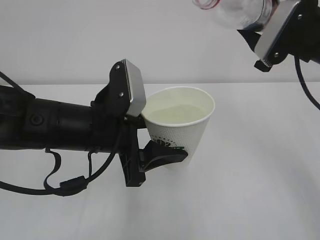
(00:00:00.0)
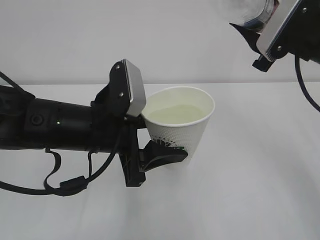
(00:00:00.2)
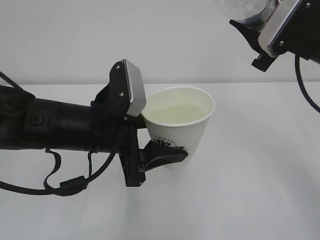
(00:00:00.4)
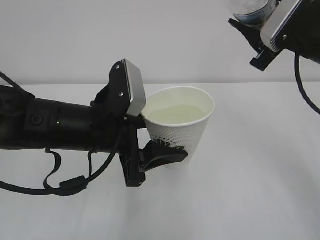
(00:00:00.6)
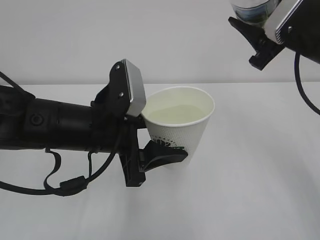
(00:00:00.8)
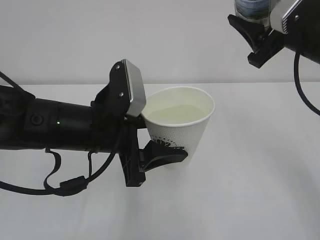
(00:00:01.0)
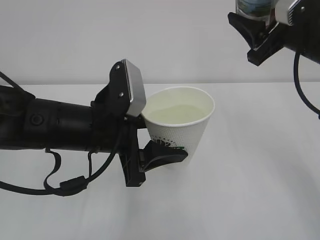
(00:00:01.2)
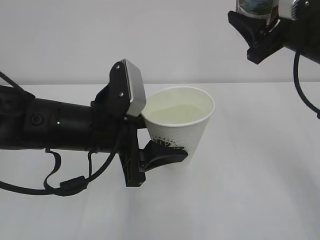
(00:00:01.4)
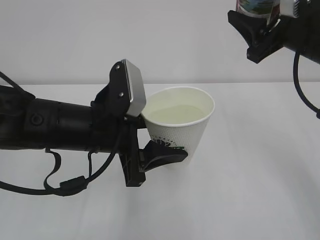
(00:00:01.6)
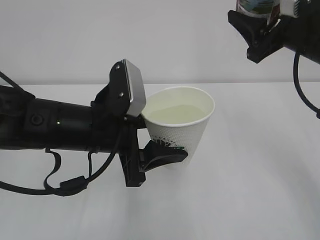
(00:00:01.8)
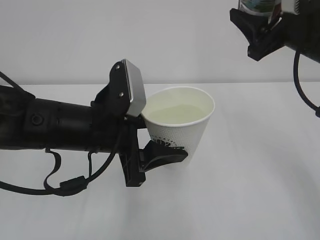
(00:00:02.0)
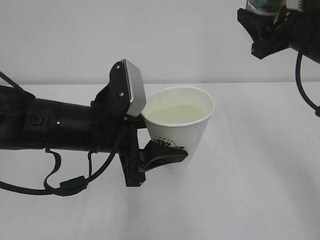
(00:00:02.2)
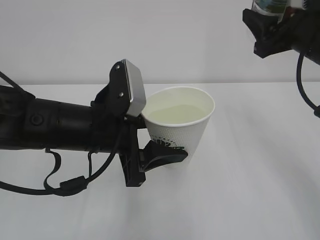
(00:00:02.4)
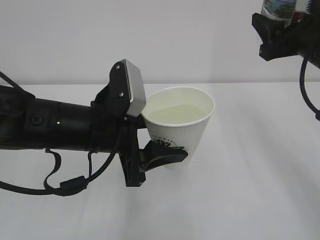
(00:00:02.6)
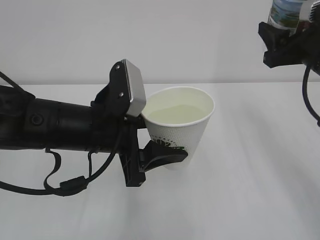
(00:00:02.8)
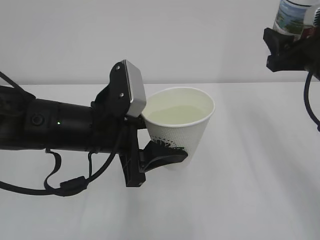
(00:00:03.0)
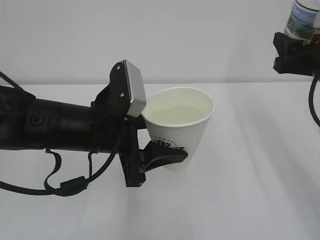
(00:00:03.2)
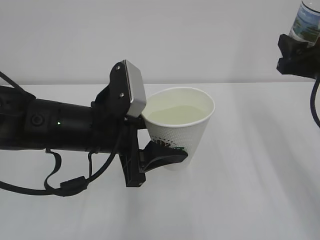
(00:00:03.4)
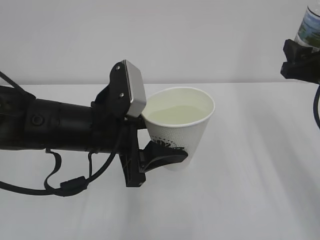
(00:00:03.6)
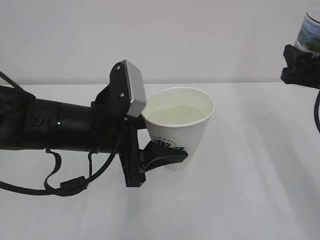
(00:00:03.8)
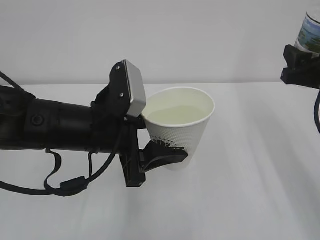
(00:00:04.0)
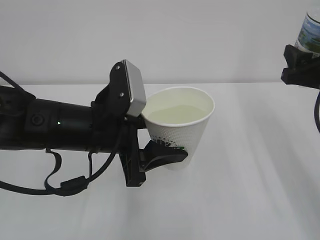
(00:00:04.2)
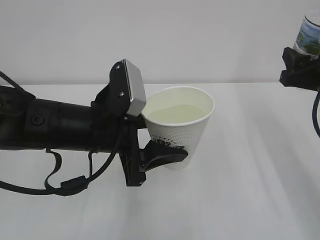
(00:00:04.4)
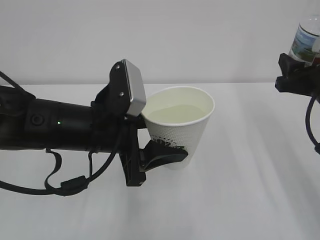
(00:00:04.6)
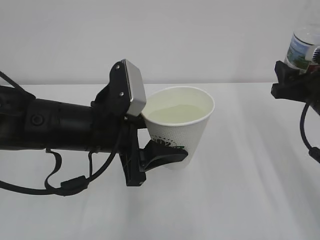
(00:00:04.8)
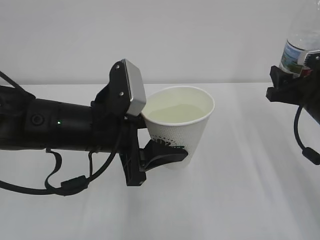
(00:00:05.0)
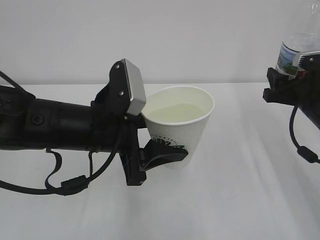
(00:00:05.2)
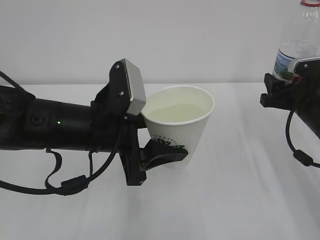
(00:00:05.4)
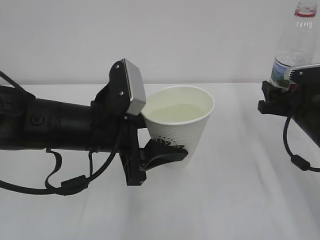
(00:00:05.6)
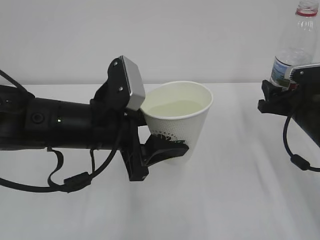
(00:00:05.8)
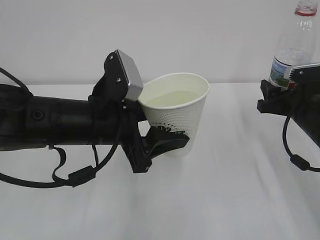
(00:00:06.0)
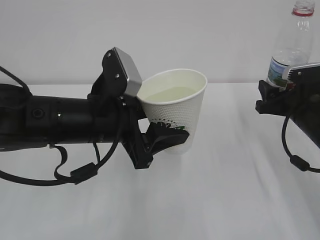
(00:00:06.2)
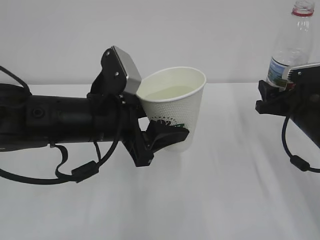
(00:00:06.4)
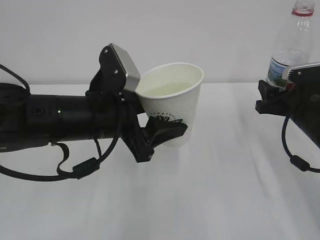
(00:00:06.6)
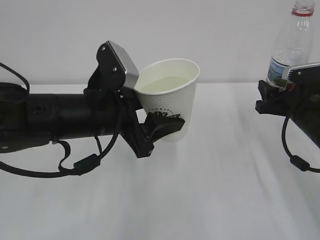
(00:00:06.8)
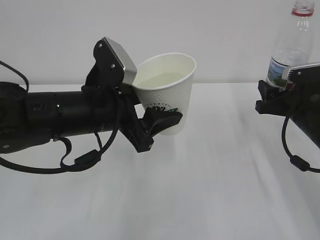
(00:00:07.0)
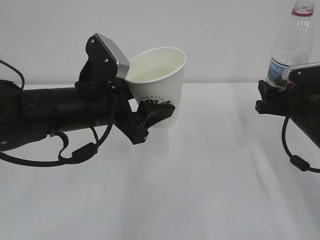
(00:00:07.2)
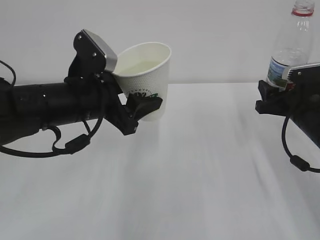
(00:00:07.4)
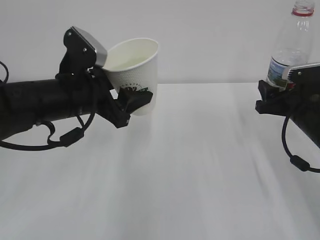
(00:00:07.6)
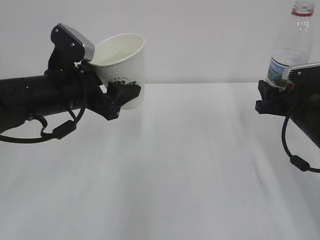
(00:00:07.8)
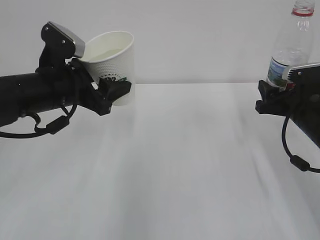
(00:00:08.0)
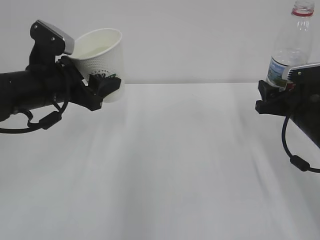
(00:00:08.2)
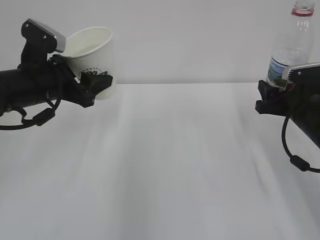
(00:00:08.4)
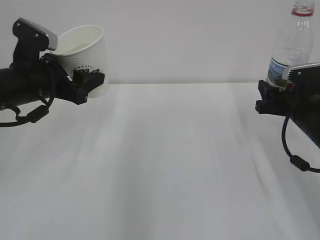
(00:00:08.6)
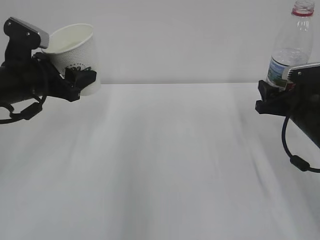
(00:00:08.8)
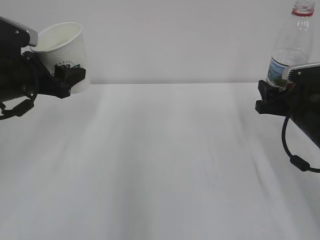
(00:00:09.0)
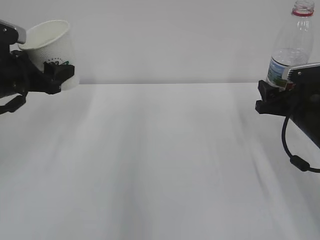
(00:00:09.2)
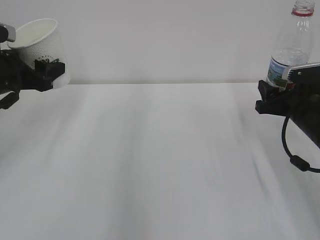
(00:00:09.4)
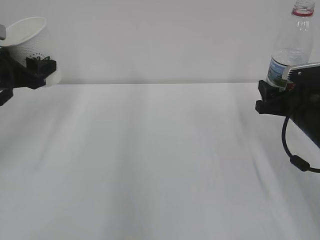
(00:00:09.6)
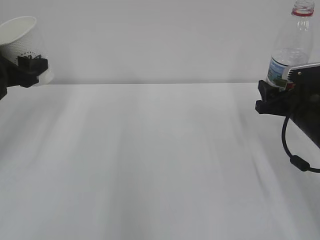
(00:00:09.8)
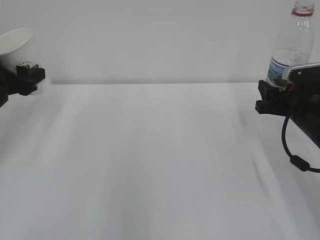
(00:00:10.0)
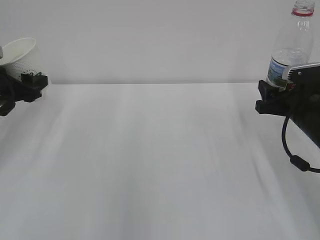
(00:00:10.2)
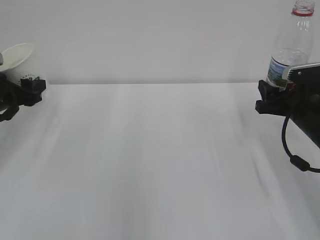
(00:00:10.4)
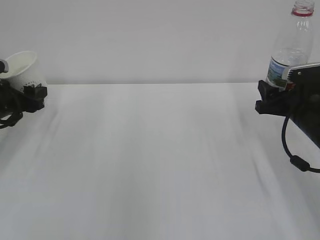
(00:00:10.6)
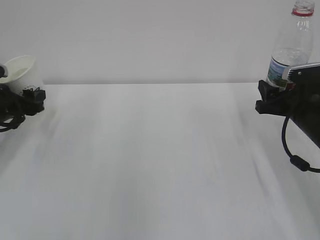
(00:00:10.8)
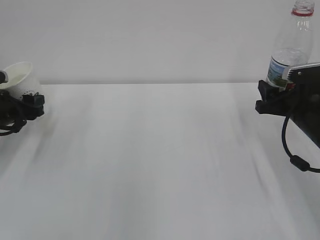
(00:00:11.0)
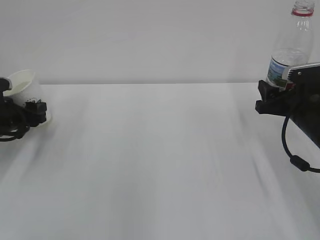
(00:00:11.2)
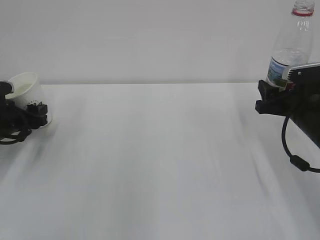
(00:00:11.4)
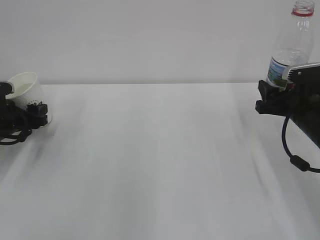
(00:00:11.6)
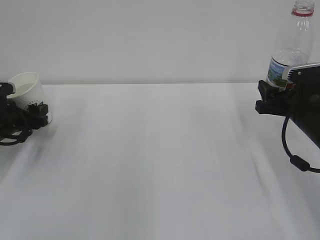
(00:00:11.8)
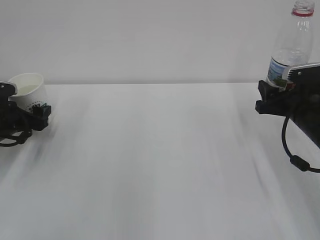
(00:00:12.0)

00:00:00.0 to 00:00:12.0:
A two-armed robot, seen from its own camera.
00:00:01.6 to 00:00:03.0: The right gripper changes place by some 5 cm.
00:00:03.0 to 00:00:04.4: There are only small adjustments of the grippers.
00:00:04.4 to 00:00:06.0: The right gripper is displaced downward by about 10 cm.
00:00:06.0 to 00:00:07.6: The left gripper moves about 5 cm.
00:00:07.6 to 00:00:09.0: The left gripper shifts approximately 10 cm to the left.
00:00:09.0 to 00:00:10.4: The left gripper shifts about 10 cm to the left and downward.
00:00:10.4 to 00:00:12.0: The left gripper is displaced downward by approximately 5 cm, and opens its fingers.

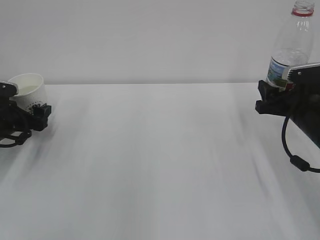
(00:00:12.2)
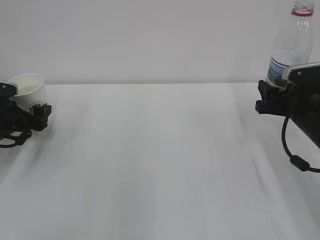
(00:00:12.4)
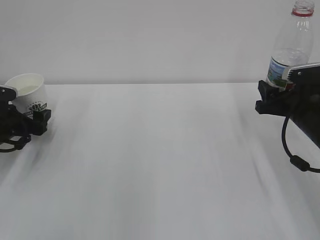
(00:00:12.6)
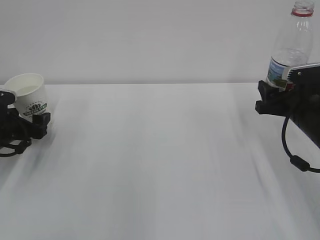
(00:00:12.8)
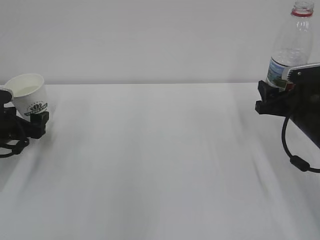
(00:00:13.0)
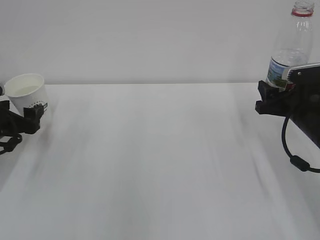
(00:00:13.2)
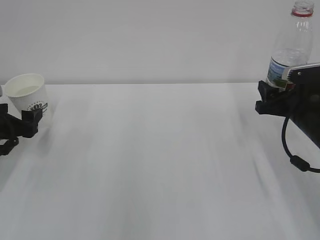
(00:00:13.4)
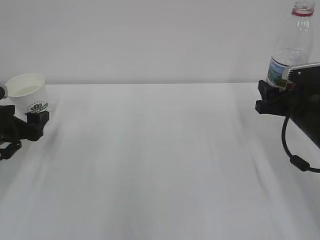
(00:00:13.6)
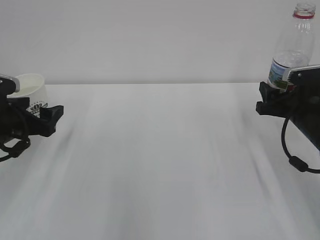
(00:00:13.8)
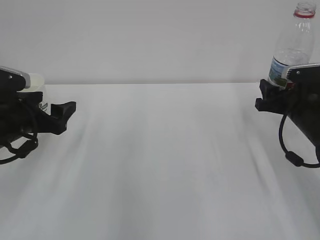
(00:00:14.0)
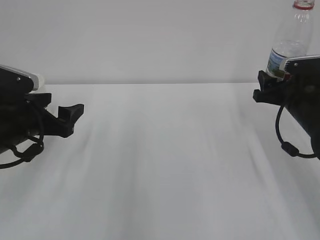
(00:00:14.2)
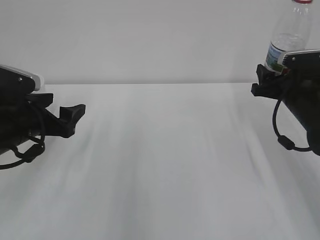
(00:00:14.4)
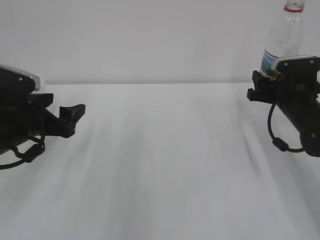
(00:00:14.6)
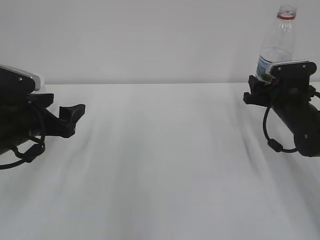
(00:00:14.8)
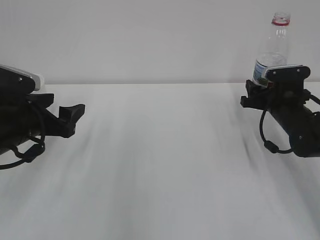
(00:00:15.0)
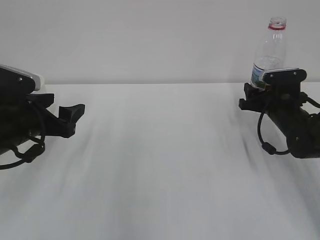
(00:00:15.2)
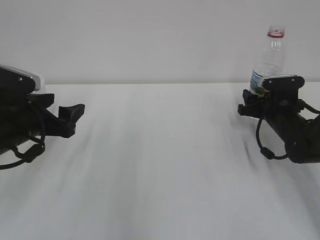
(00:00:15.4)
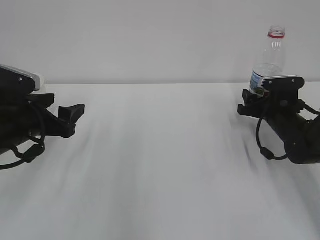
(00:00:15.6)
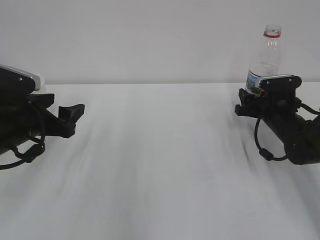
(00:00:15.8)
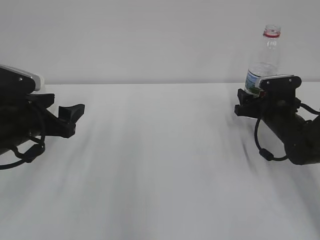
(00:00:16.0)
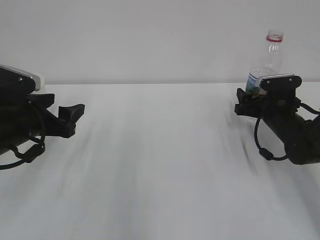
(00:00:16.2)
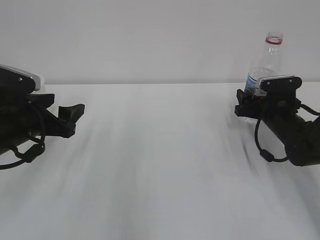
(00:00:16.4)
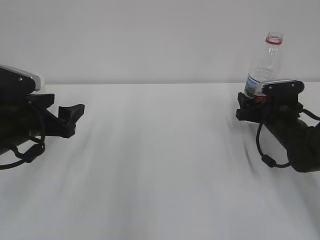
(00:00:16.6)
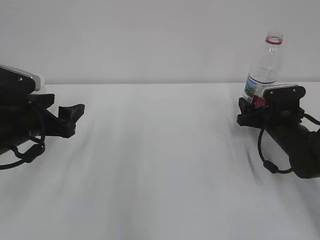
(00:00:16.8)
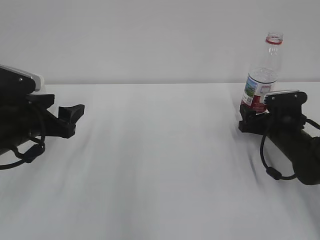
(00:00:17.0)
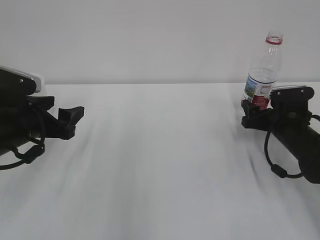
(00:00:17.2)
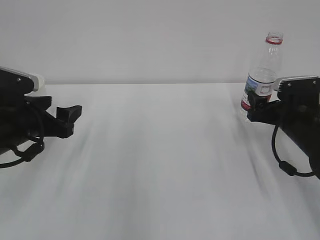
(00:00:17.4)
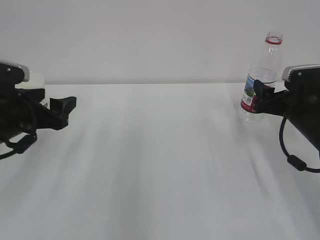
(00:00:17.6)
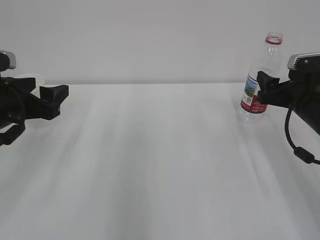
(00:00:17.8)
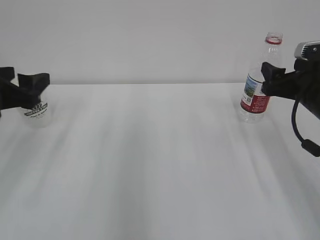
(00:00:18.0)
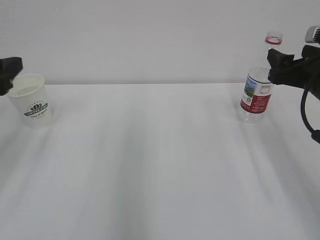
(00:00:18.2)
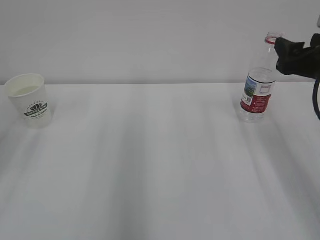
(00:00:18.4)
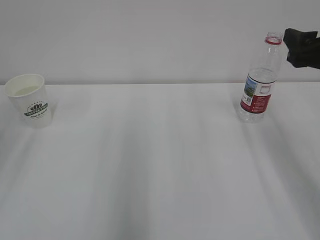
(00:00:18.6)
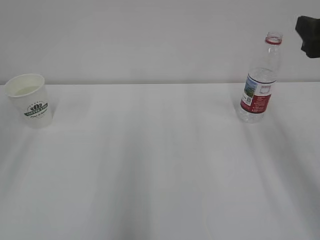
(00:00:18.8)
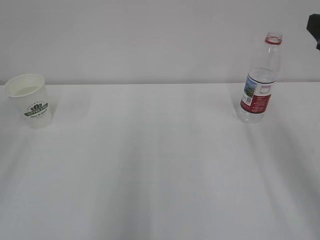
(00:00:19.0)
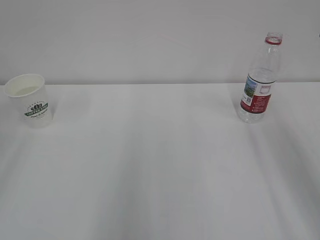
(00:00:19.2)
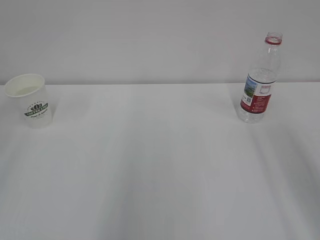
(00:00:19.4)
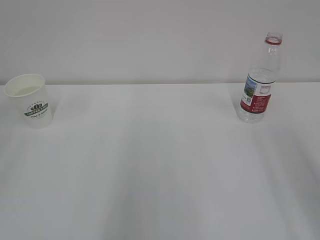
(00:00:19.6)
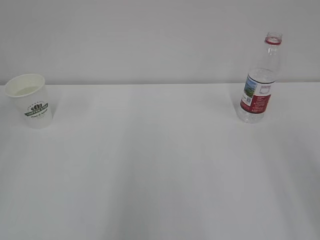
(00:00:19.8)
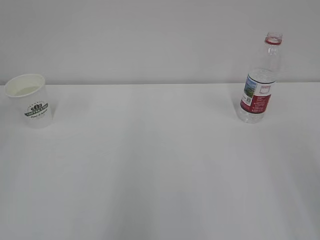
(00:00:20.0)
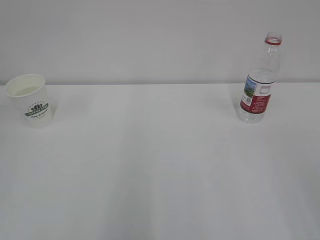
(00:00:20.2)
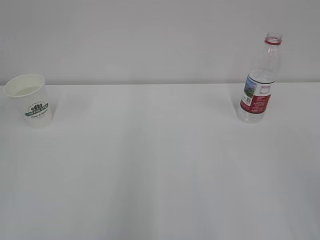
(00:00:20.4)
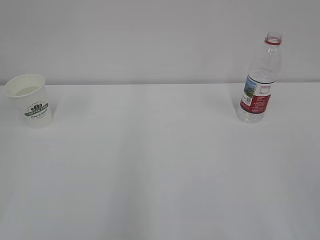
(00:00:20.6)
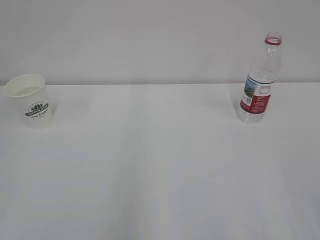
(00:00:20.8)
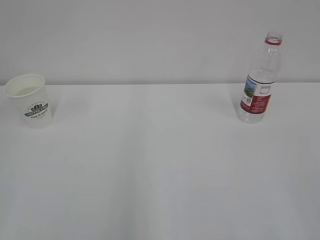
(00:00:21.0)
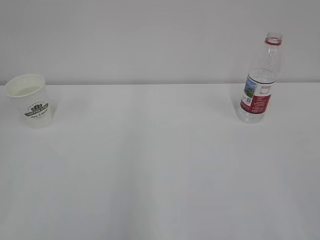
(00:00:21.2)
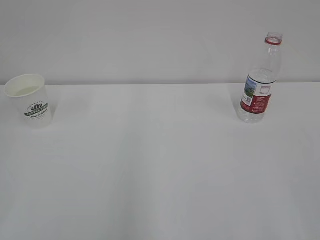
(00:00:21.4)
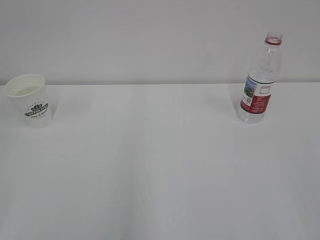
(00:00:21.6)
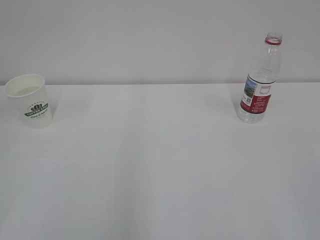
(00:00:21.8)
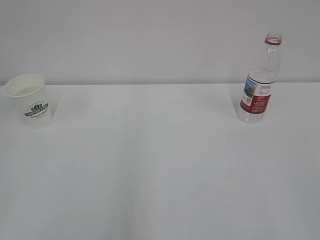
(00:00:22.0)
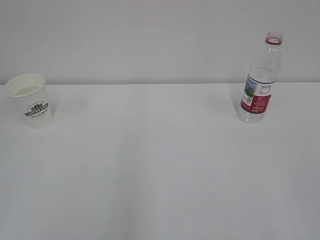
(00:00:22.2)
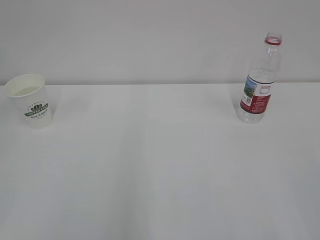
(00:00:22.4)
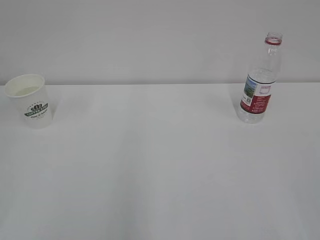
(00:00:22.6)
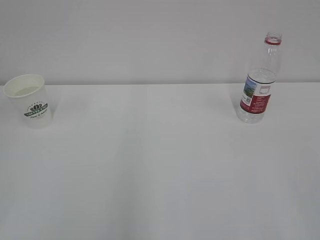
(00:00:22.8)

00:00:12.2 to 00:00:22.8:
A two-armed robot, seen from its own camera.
00:00:12.2 to 00:00:13.8: The left gripper heads backward, upward and to the right, covering about 10 cm.
00:00:13.8 to 00:00:15.2: The right gripper goes approximately 5 cm forward.
00:00:15.2 to 00:00:16.8: The grippers move only a little.
00:00:16.8 to 00:00:18.2: The right gripper goes roughly 15 cm upward and backward. Meanwhile the left gripper is displaced upward and to the left by roughly 10 cm.
00:00:18.2 to 00:00:19.8: The two grippers go about 25 cm backward and upward.
00:00:21.2 to 00:00:22.8: Neither gripper changes place.
